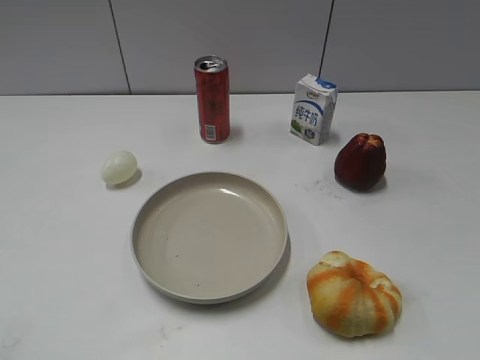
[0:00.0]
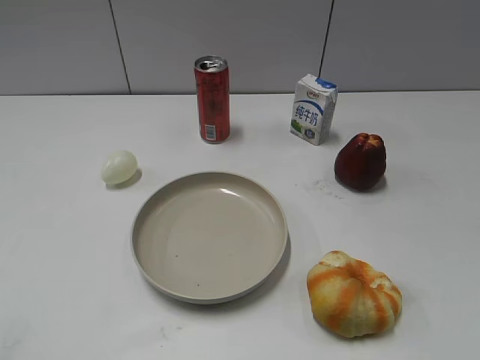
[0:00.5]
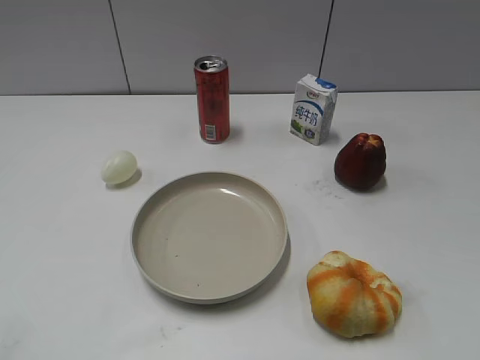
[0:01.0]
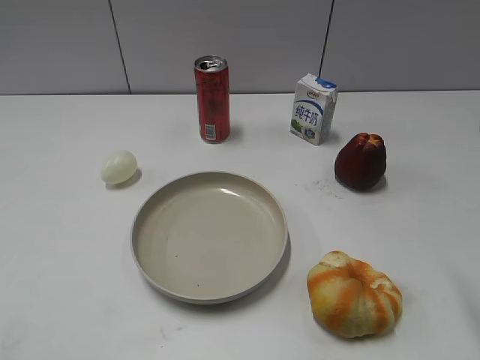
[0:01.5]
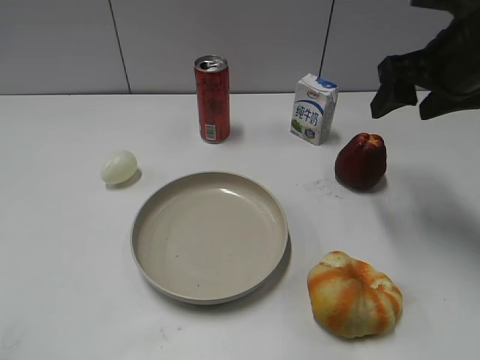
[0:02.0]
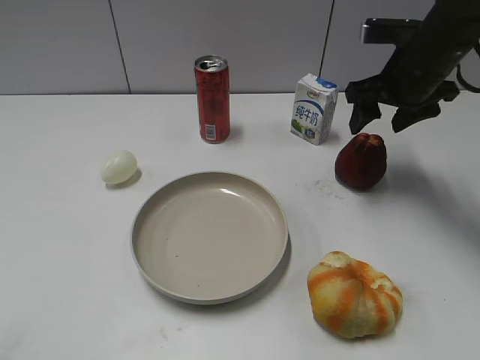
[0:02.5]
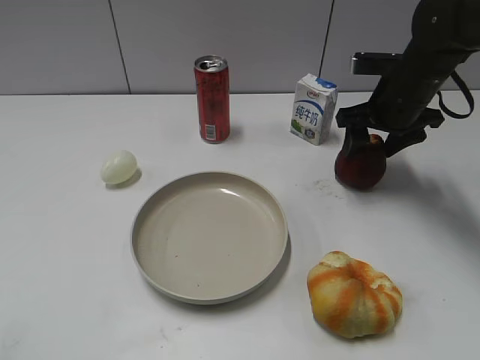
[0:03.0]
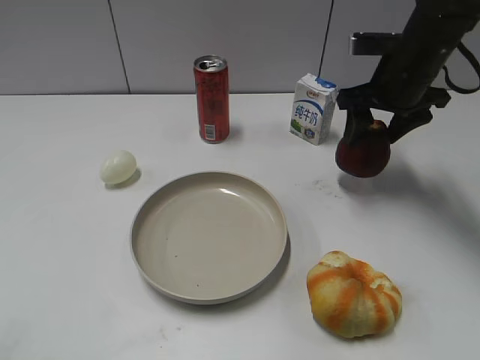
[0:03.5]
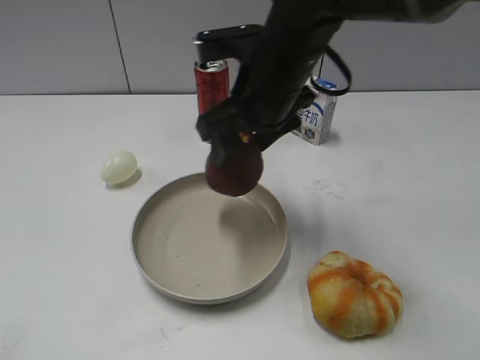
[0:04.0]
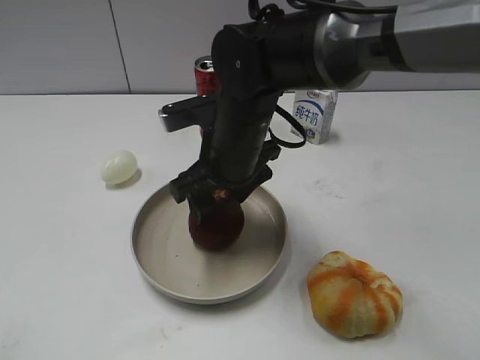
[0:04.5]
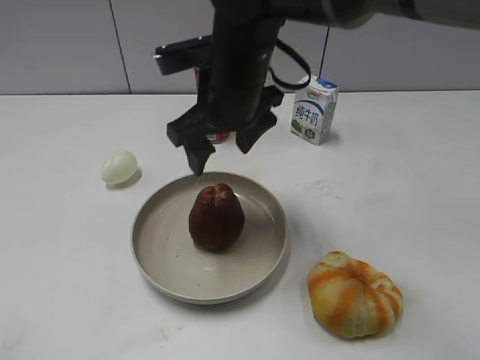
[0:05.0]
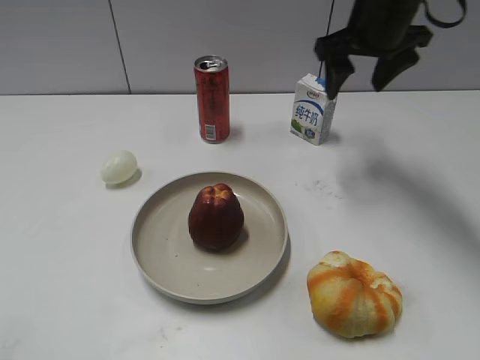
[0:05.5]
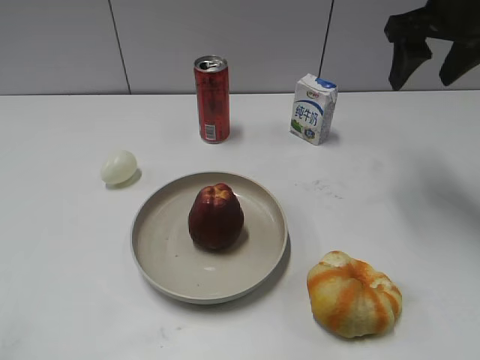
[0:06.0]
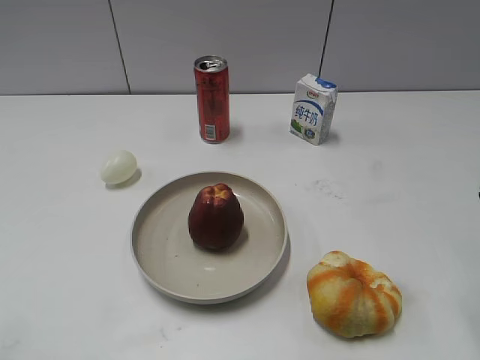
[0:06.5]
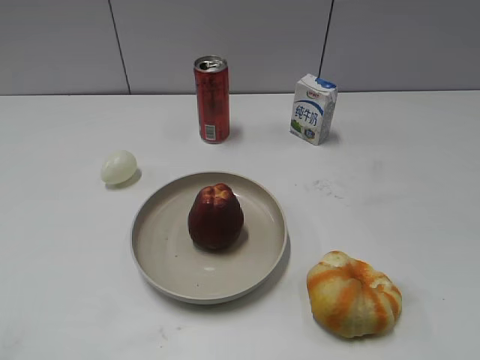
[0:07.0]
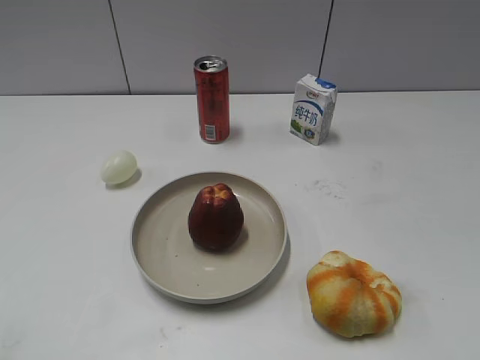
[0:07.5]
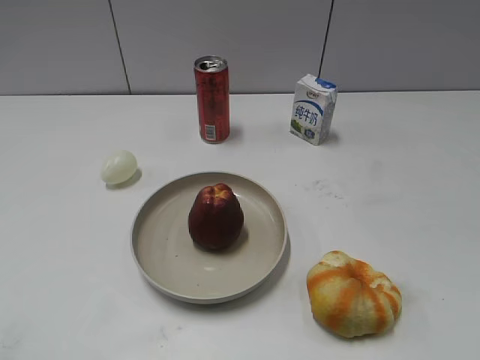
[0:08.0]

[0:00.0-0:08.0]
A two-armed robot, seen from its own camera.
Step, 0:01.0 to 0:03.0: Grasp the apple with right gripper.
Step, 0:03.5 to 0:04.5: Place the apple on the plate with right gripper.
0:02.0 to 0:04.0: The right gripper moves to the left, approximately 20 cm.
0:04.0 to 0:06.0: The right gripper heads to the right, covering some 20 cm, and opens and closes again.
0:06.0 to 0:08.0: The right gripper is displaced backward by about 40 cm.

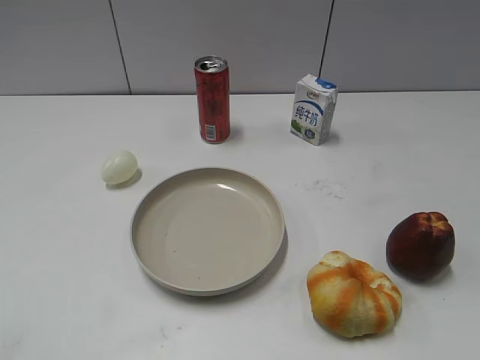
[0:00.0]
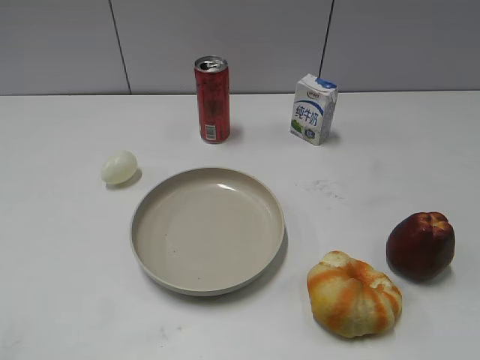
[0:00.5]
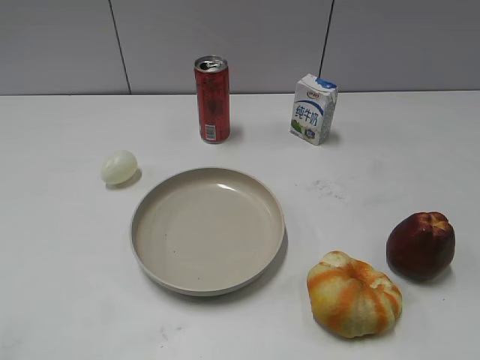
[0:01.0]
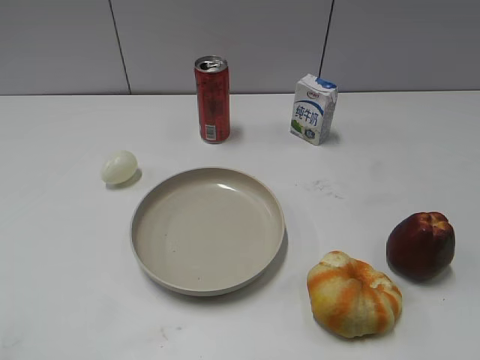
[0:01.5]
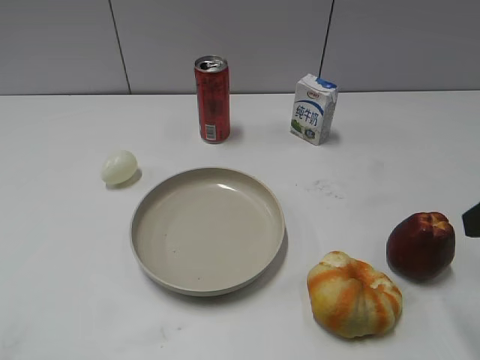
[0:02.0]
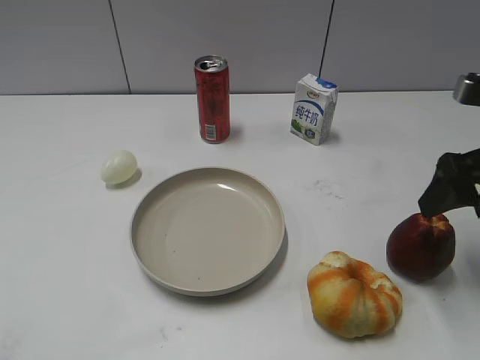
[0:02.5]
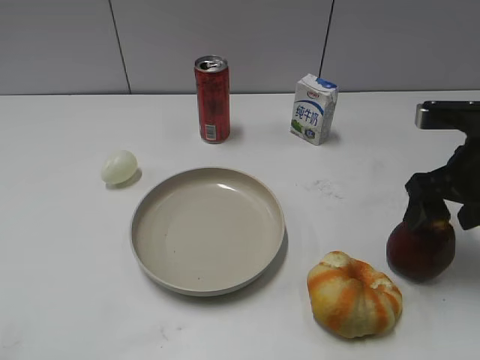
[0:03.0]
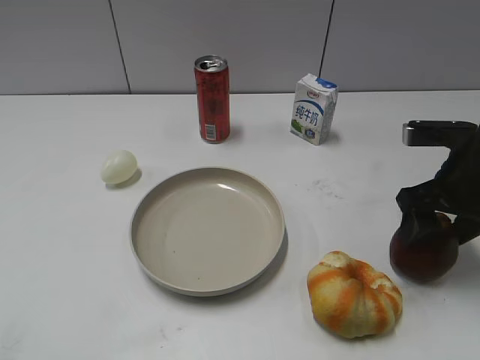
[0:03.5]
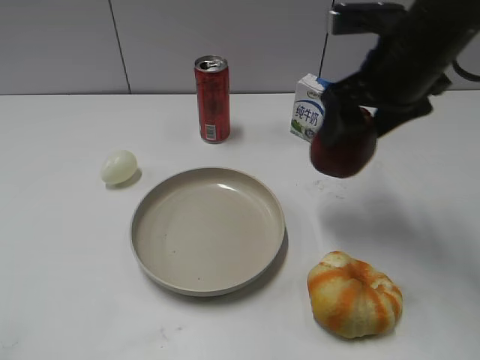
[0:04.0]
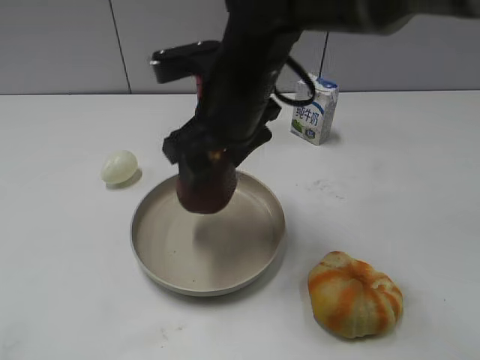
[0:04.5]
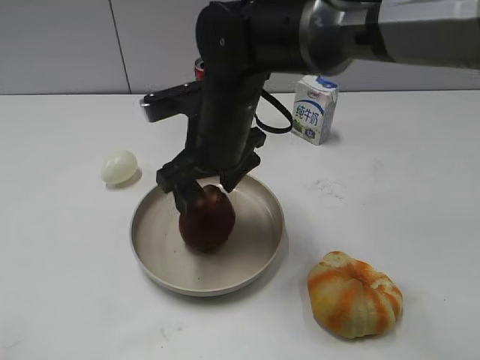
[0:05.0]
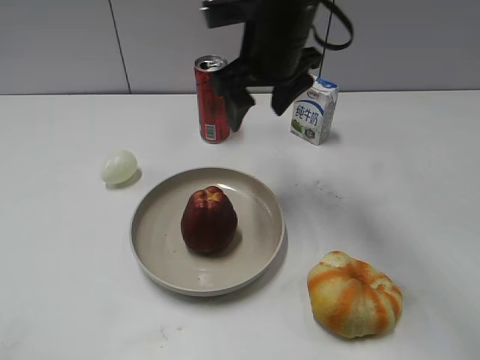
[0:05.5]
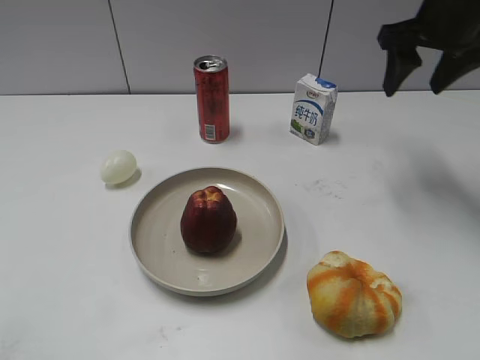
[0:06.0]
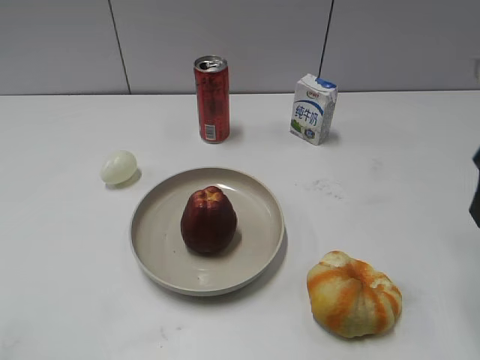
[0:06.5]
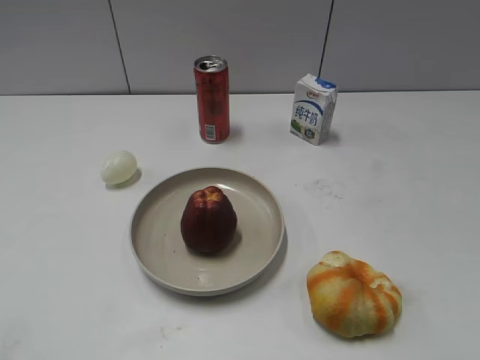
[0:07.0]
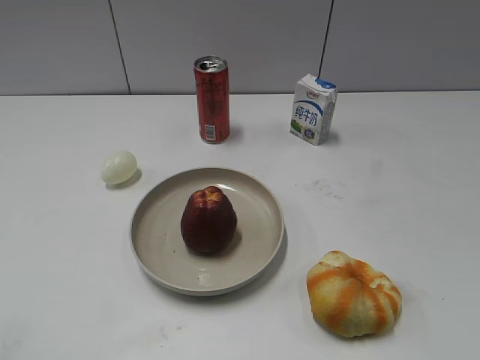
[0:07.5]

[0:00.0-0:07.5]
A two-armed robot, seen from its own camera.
Step, 0:00.0 to 0:03.0: Grasp the apple with right gripper.
Step, 0:03.5 to 0:05.0: Place the apple on the plate with right gripper.
0:02.0 to 0:04.0: The right gripper heads forward and to the left, covering approximately 20 cm.
0:04.0 to 0:05.5: The right gripper moves to the left and forward, about 10 cm.
0:05.5 to 0:07.5: The right gripper goes some 40 cm backward and to the right.

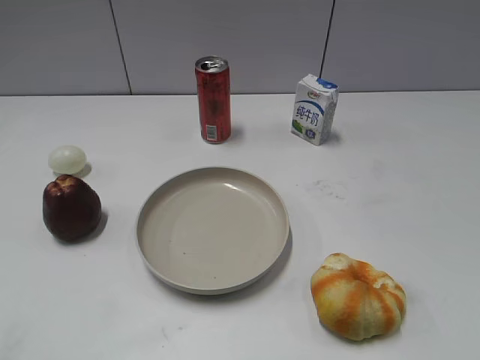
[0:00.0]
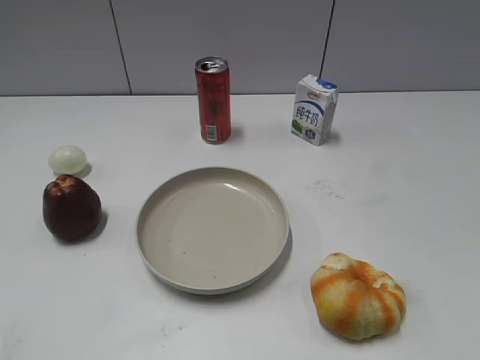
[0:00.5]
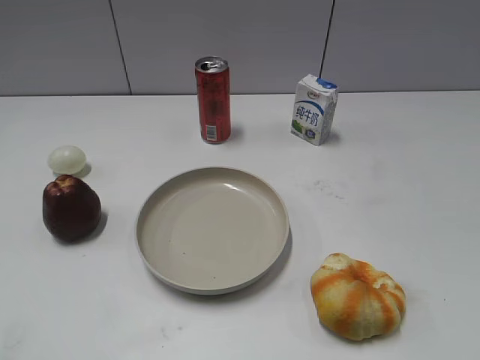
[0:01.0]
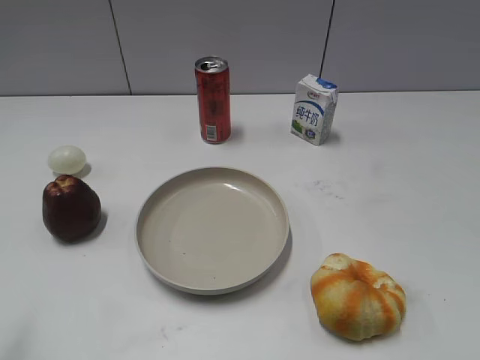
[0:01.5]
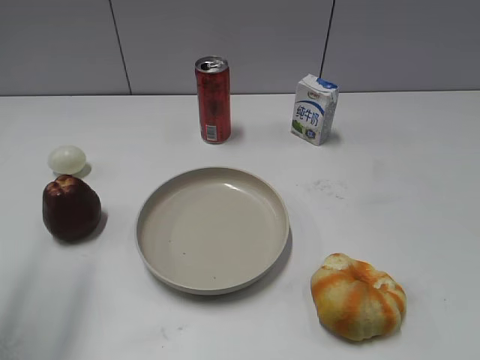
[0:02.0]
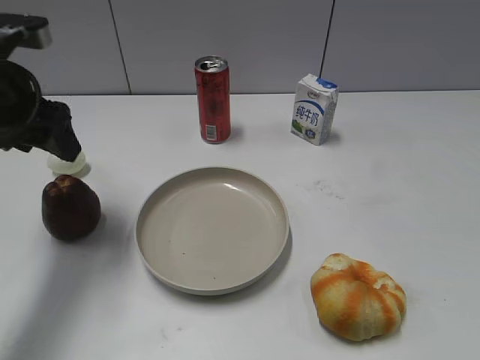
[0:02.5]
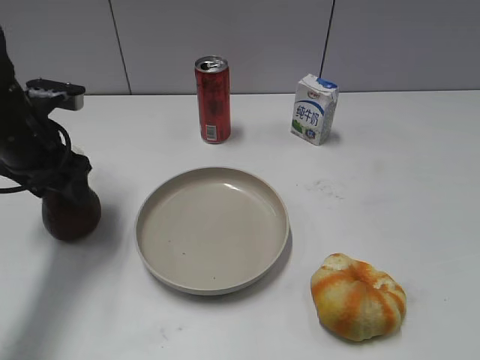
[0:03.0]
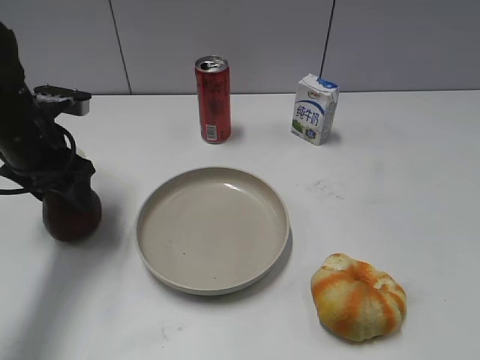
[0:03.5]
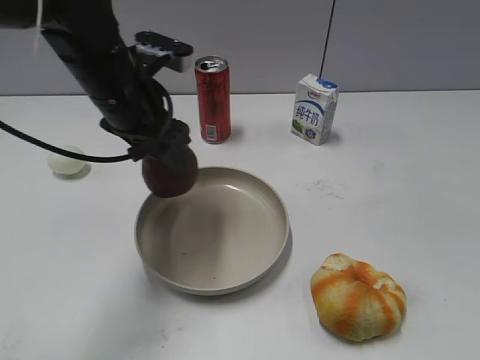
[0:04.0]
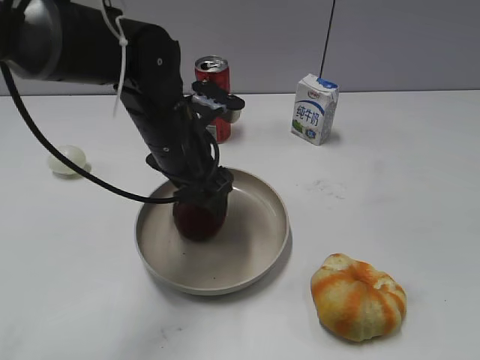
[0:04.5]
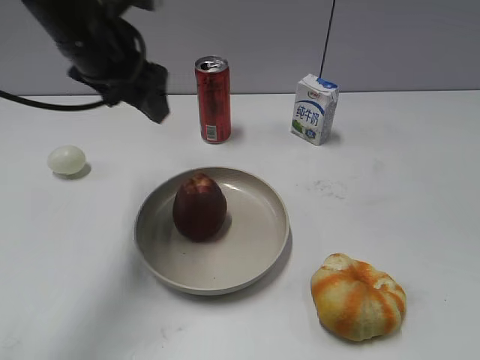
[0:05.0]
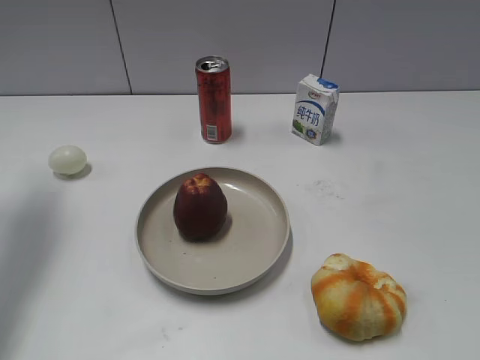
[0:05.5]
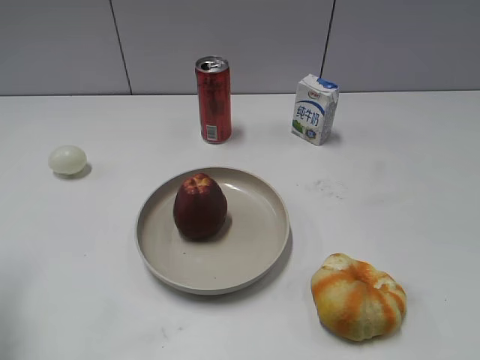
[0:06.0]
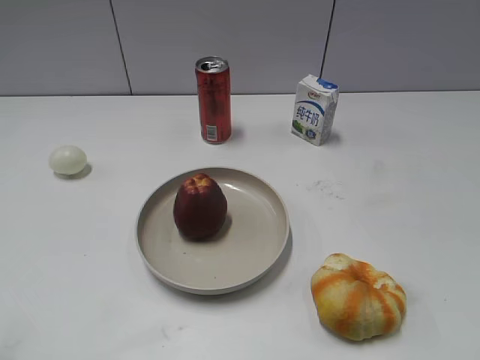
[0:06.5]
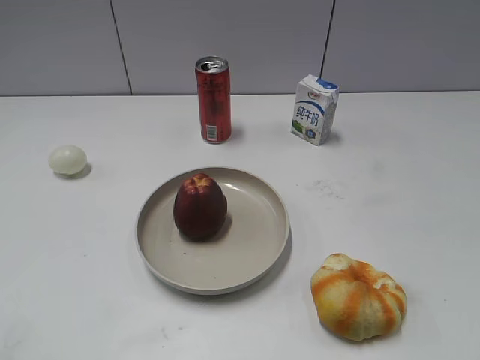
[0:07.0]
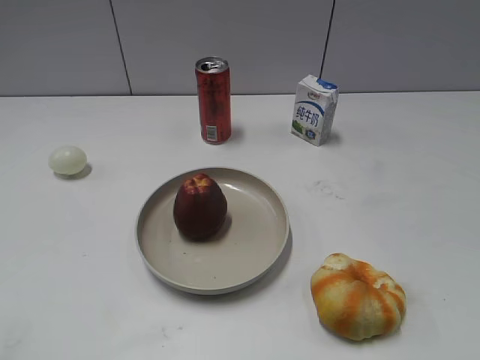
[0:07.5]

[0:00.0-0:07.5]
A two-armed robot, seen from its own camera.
Step, 0:01.0 to 0:03.0: Grasp the apple with left gripper.
Step, 0:04.0 to 0:04.5: Place the apple on the plate with left gripper.
0:02.0 to 0:04.0: The left gripper moves to the right, forward and downward, roughly 25 cm.
0:04.0 to 0:05.5: The left gripper goes approximately 20 cm to the left, and opens up.
0:05.5 to 0:07.5: The left gripper moves backward, roughly 35 cm.

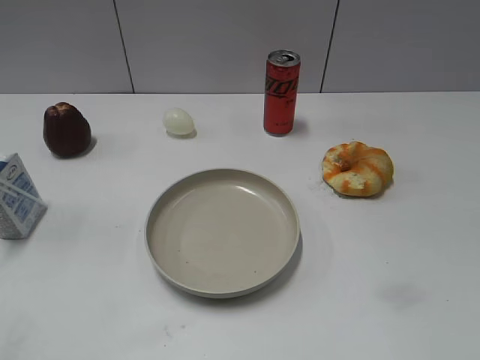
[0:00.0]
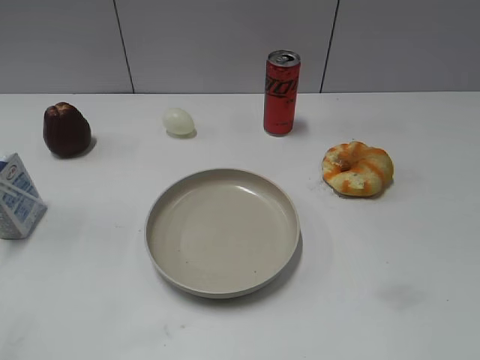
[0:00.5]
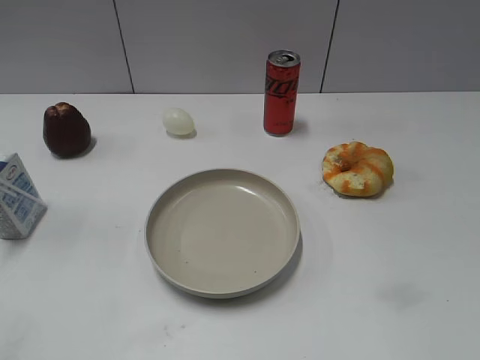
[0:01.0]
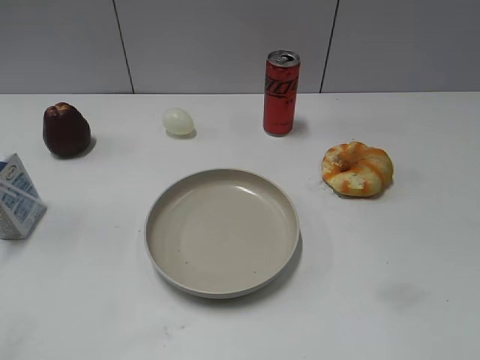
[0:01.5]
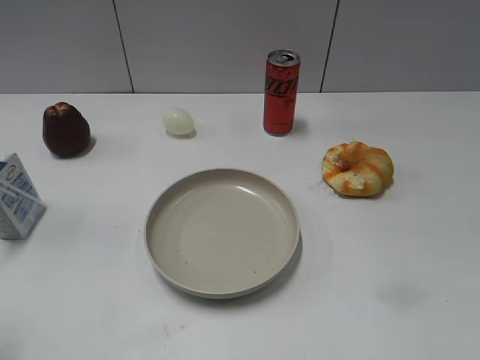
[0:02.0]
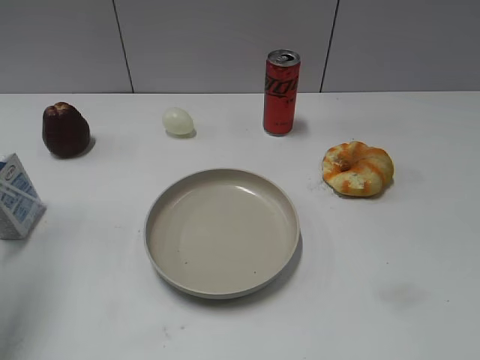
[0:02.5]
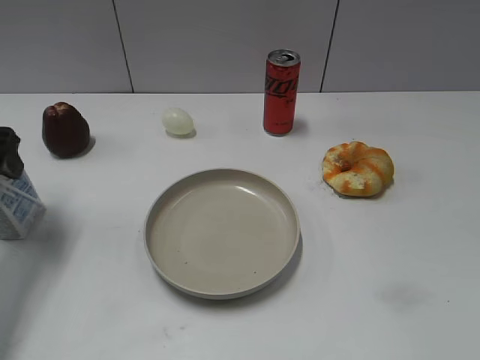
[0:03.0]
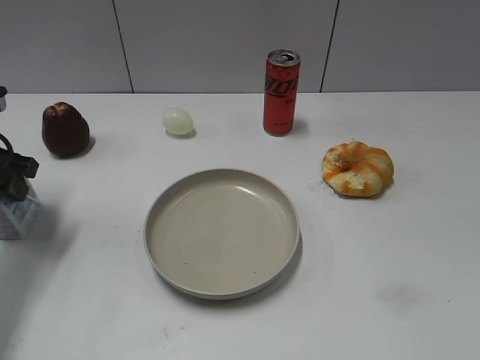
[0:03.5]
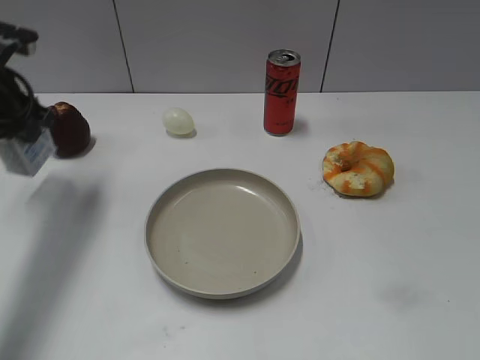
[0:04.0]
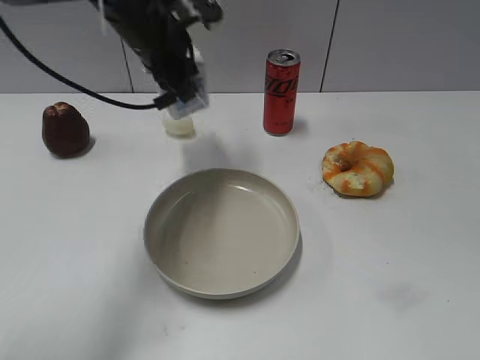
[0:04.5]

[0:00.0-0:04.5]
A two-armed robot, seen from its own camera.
Step, 0:01.5 to 0:03.5: Grasp the milk with left gripper.
0:02.0 to 0:04.5: The left gripper shifts roughly 40 cm forward and to the right, and closes up.
